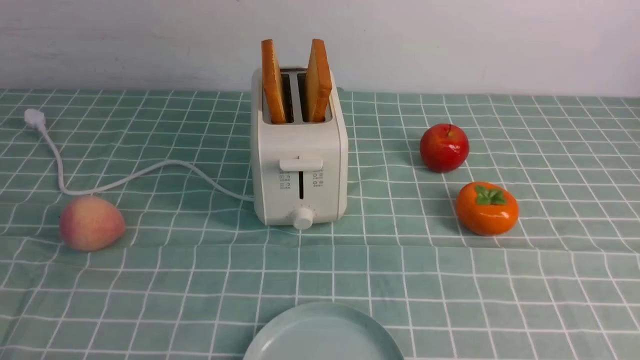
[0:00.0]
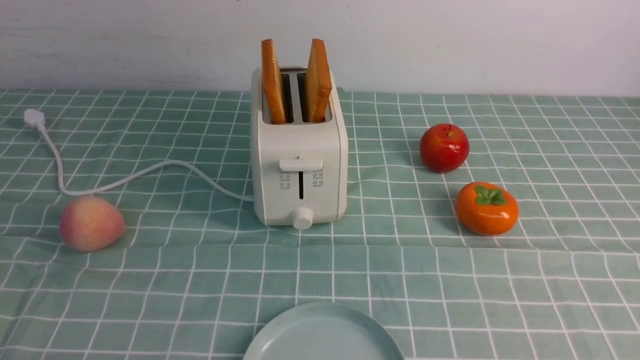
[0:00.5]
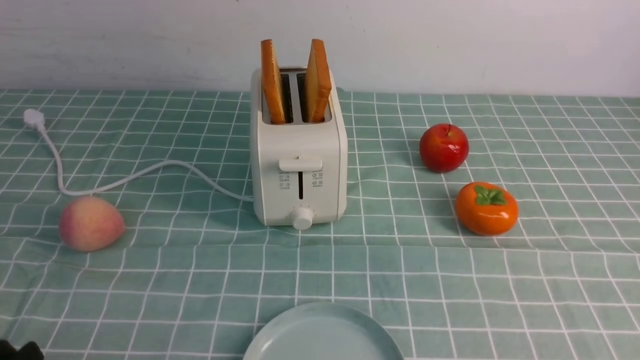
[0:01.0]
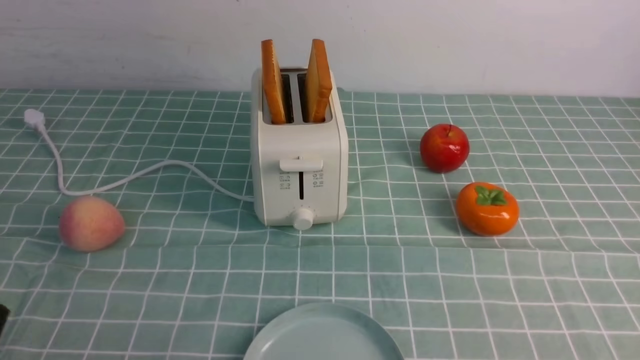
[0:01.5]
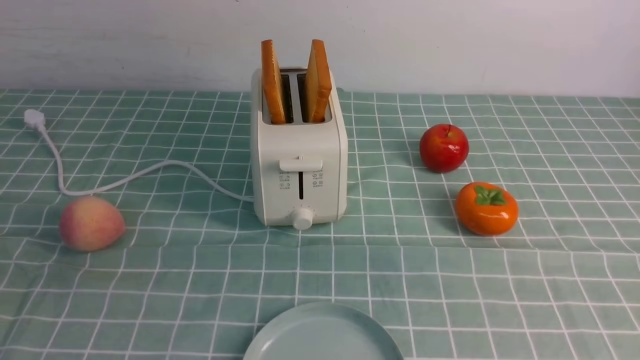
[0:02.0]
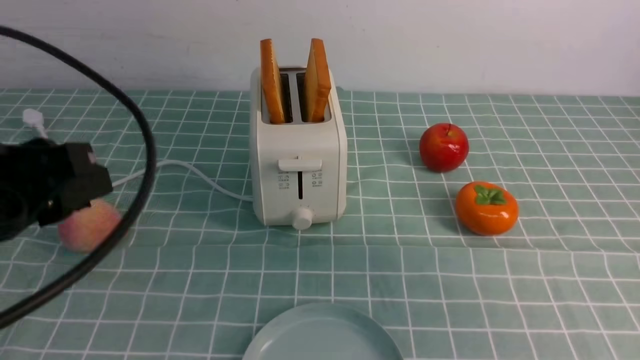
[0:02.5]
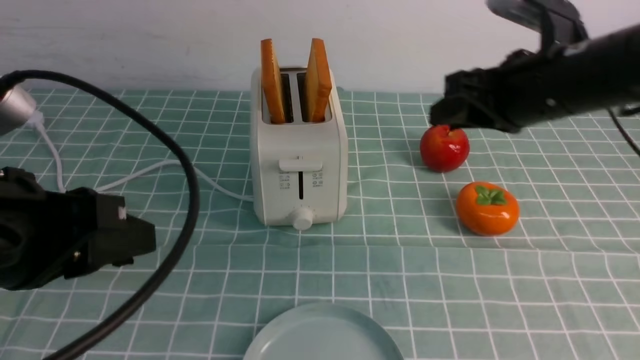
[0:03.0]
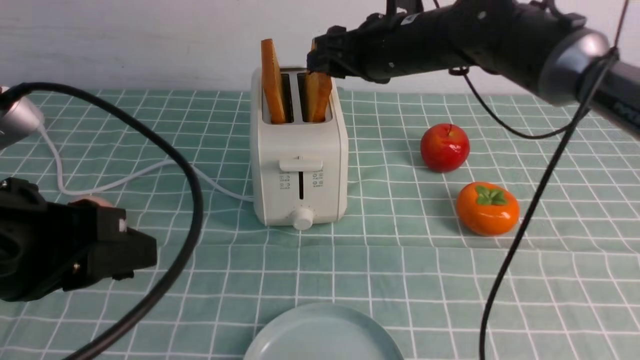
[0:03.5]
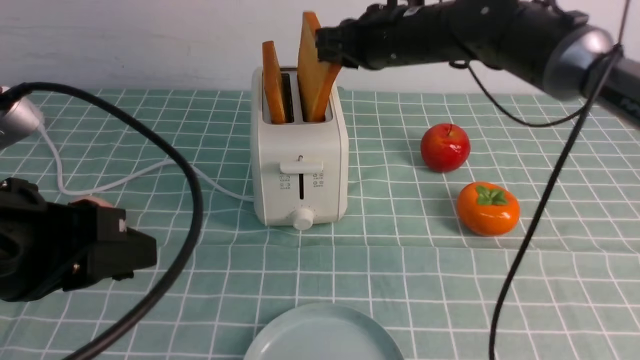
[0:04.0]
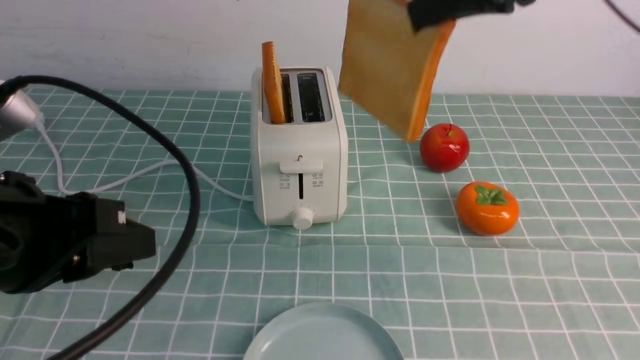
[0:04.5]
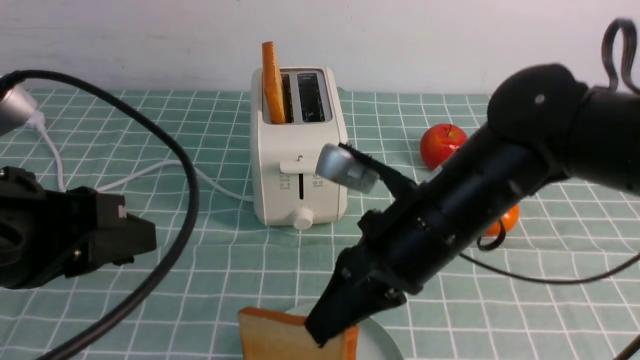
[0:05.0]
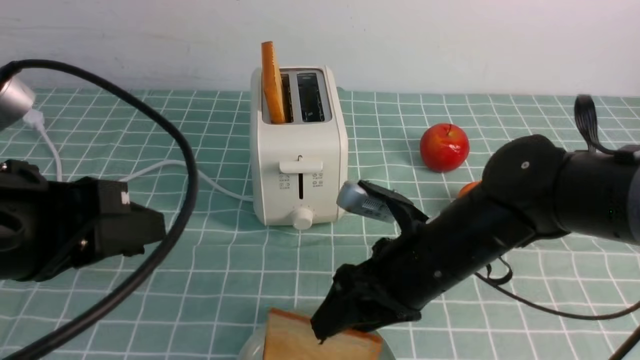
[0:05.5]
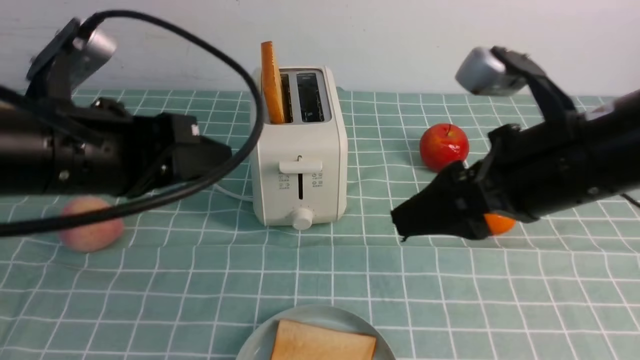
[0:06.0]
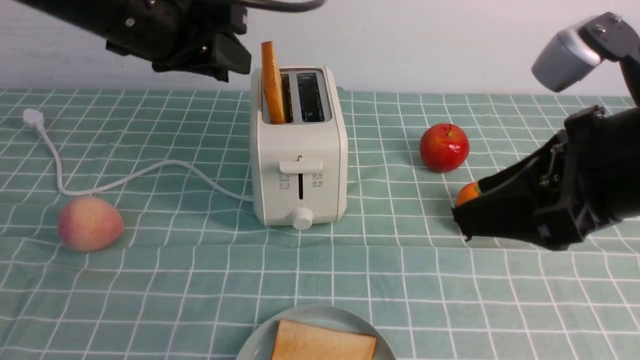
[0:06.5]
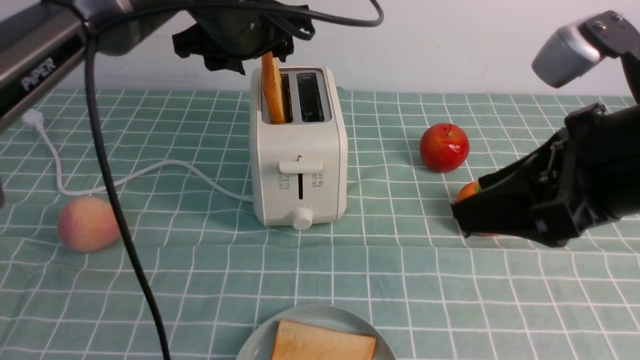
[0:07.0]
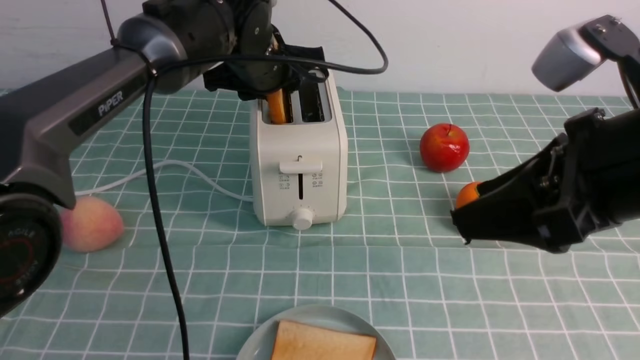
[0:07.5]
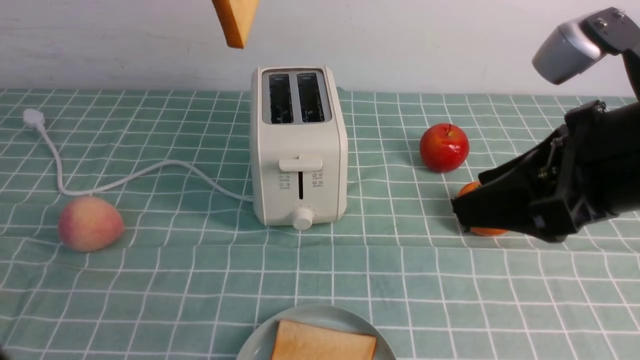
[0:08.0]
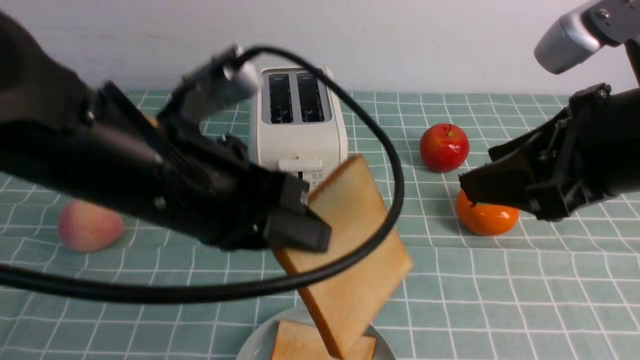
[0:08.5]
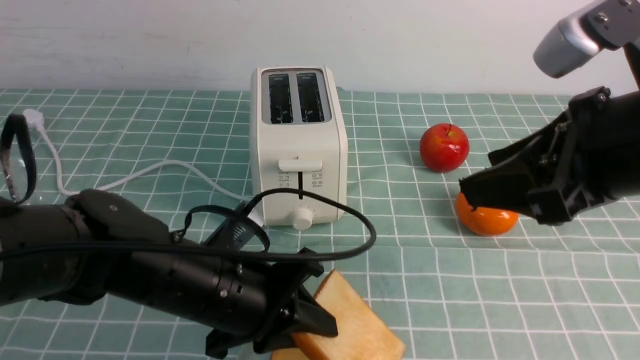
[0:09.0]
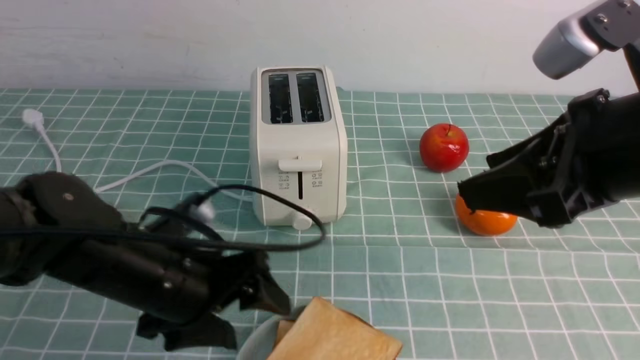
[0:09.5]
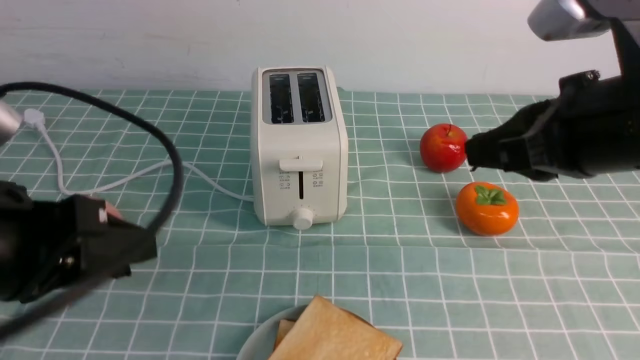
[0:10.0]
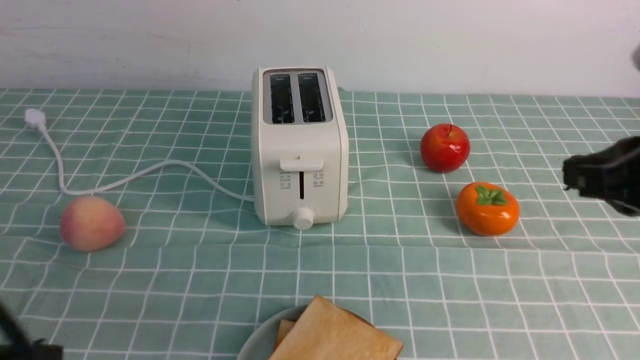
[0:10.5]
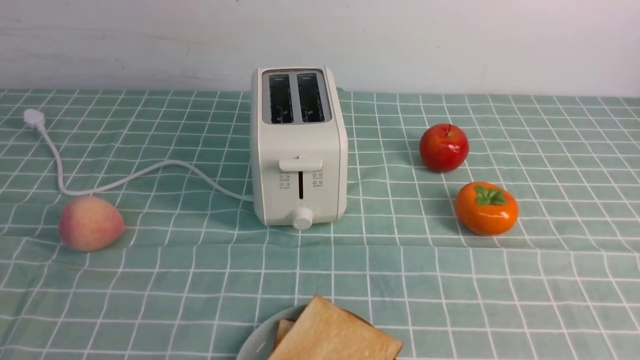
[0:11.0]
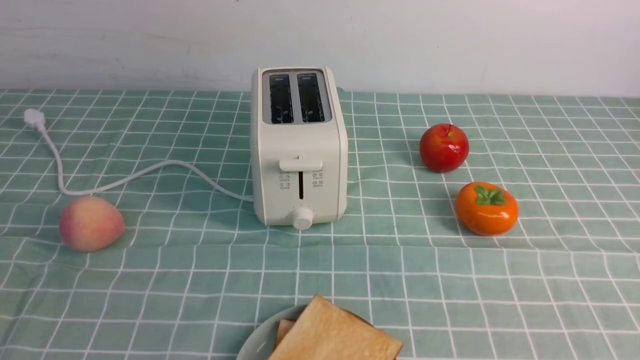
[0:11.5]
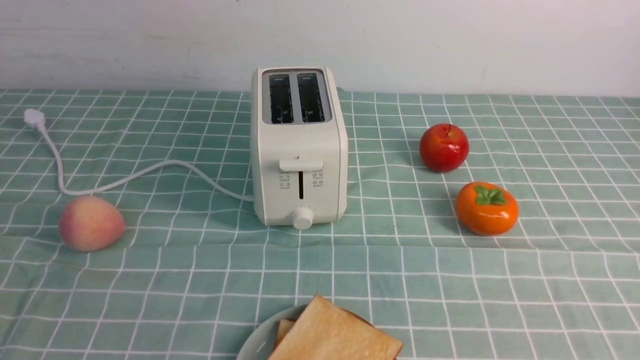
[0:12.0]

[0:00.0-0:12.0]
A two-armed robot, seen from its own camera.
Task of the whole recording: take toasted bread from bread machine on blue coffee table place on plate.
Step, 0:00.0 to 0:04.0: use the right arm to take out a slice of bread.
Step, 0:04.5 to 0:05.5: use the right arm to put a slice of bread into the plate.
Step, 0:06.0 to 0:07.5: use the left arm to take out a slice of bread.
Step, 0:08.0 to 0:09.5: use the left arm to put a slice of bread into the empty plate.
0:02.0 to 0:04.0: The right gripper moves forward and to the left, some 50 cm. The left gripper shifts about 10 cm forward and to the right.
0:04.0 to 0:06.0: The left gripper moves forward, about 5 cm. The right gripper goes up and down, roughly 20 cm each way, reversing 2 times, and opens.
0:06.0 to 0:08.0: The left gripper travels forward, upward and to the right by some 20 cm. Meanwhile the right gripper shifts some 10 cm upward and backward.
0:08.0 to 0:10.0: The left gripper shifts approximately 25 cm backward, downward and to the left, and opens its fingers, while the right gripper closes up.
0:10.0 to 0:12.0: The right gripper is displaced backward, downward and to the right by approximately 25 cm. The left gripper is displaced backward by roughly 15 cm, and closes.

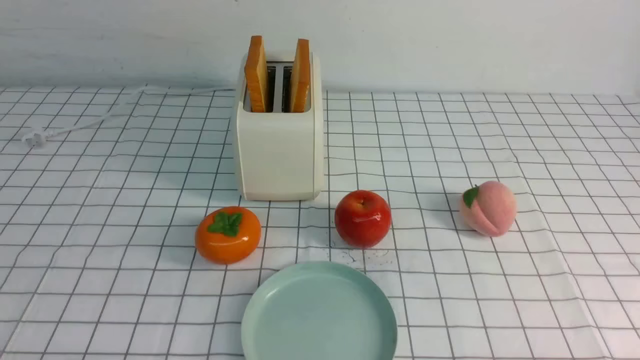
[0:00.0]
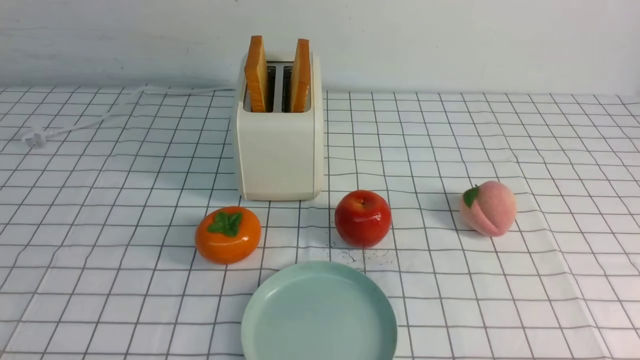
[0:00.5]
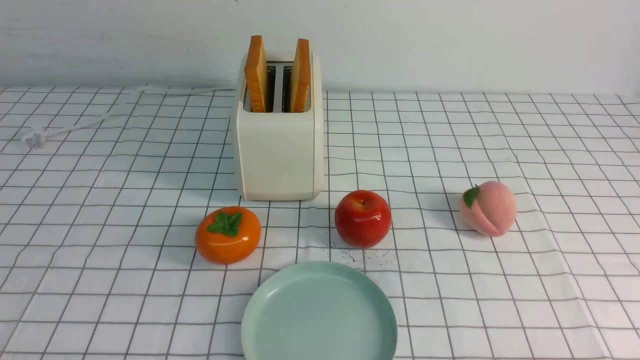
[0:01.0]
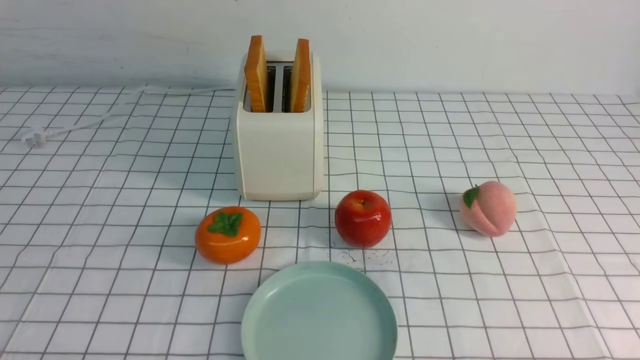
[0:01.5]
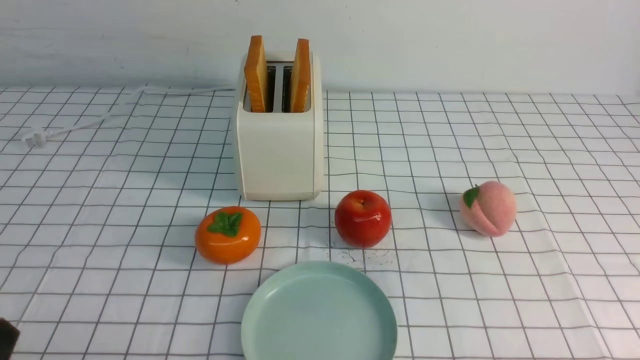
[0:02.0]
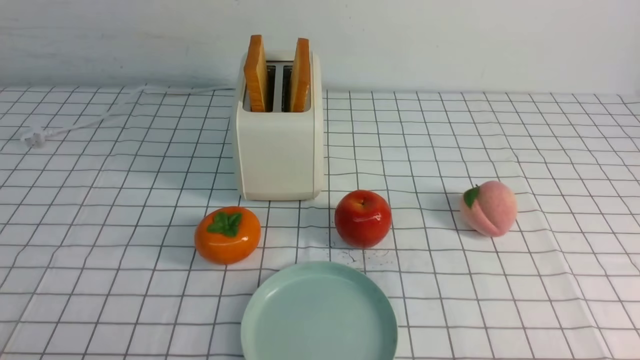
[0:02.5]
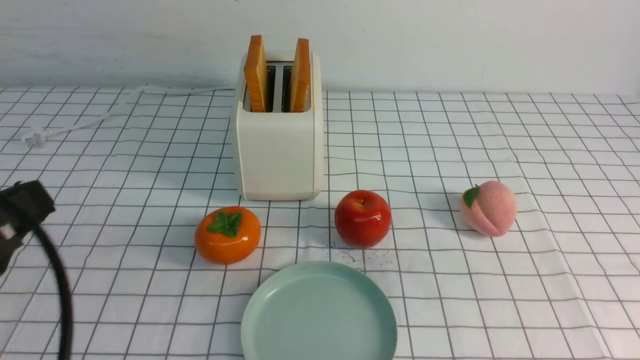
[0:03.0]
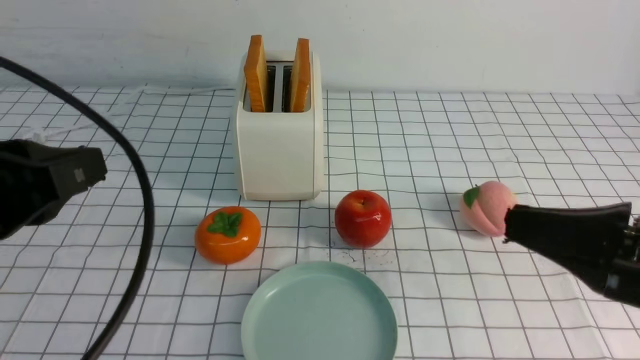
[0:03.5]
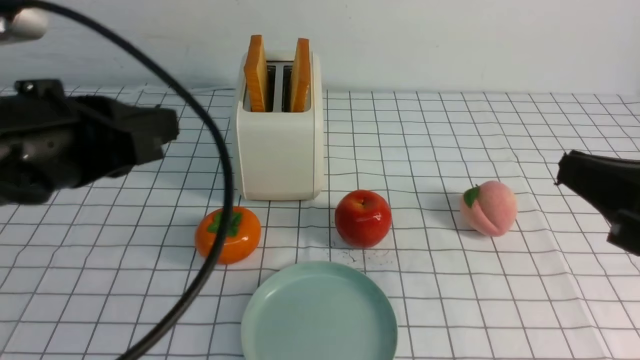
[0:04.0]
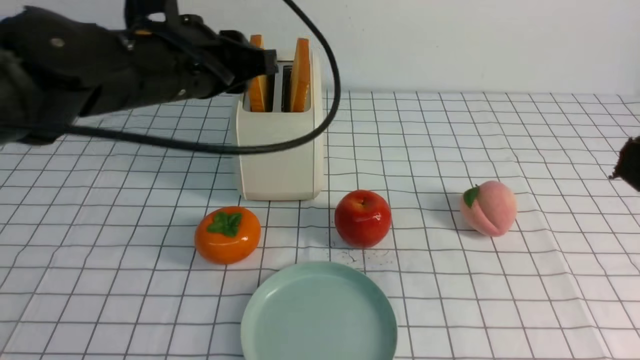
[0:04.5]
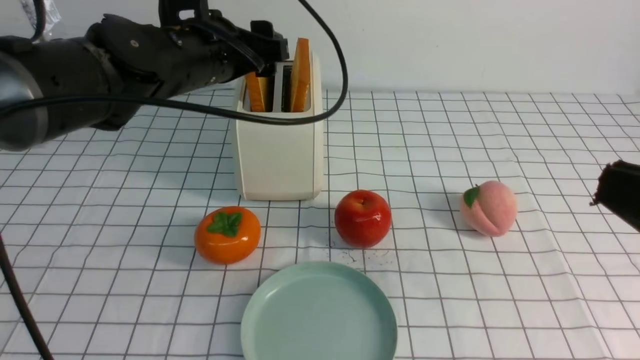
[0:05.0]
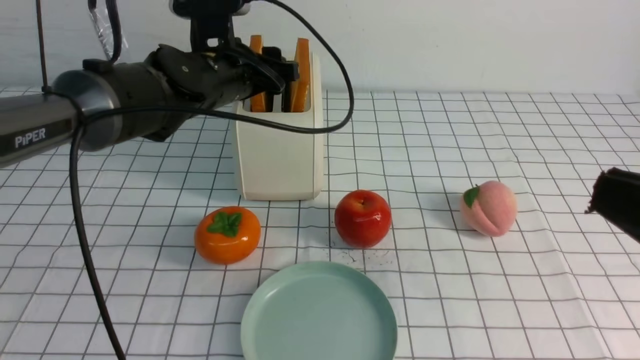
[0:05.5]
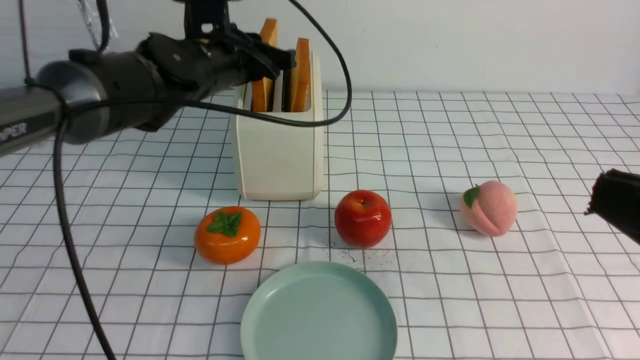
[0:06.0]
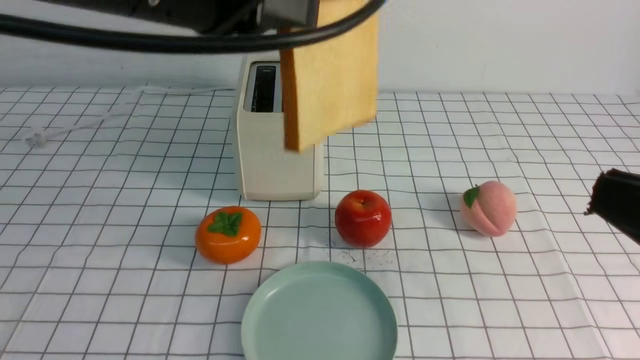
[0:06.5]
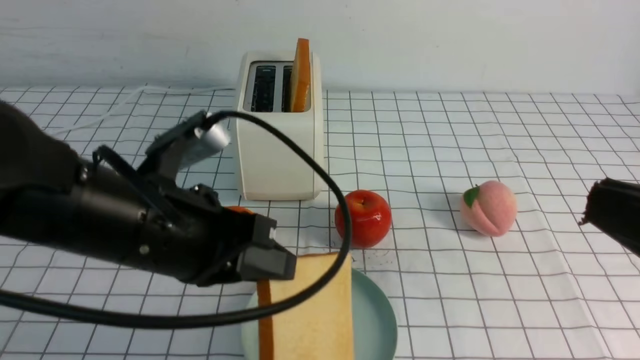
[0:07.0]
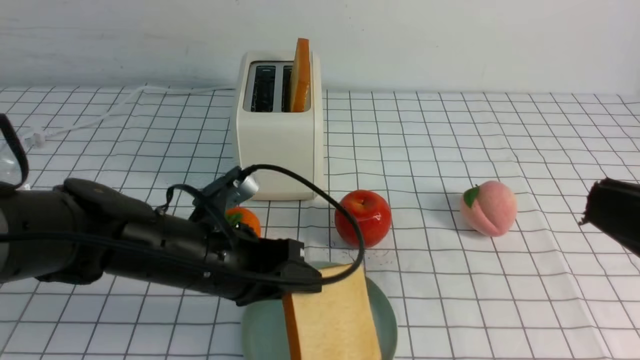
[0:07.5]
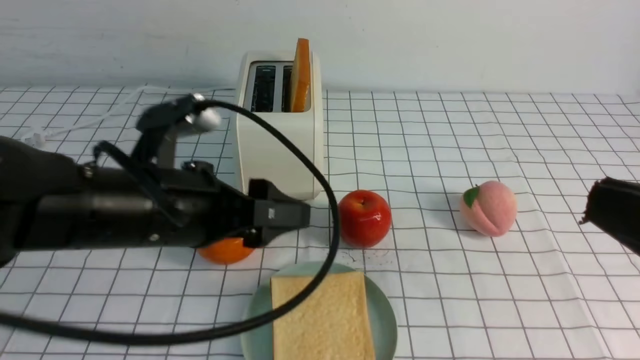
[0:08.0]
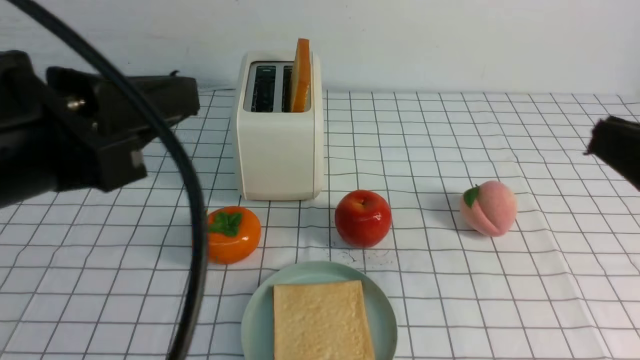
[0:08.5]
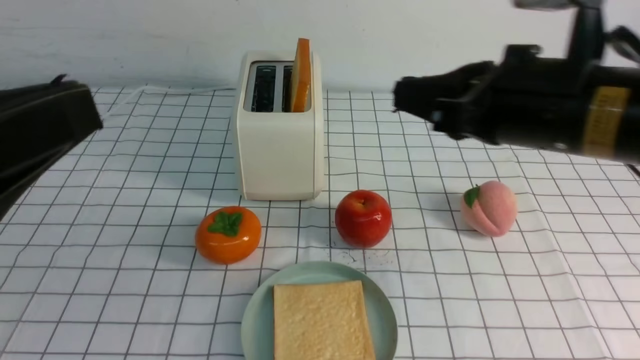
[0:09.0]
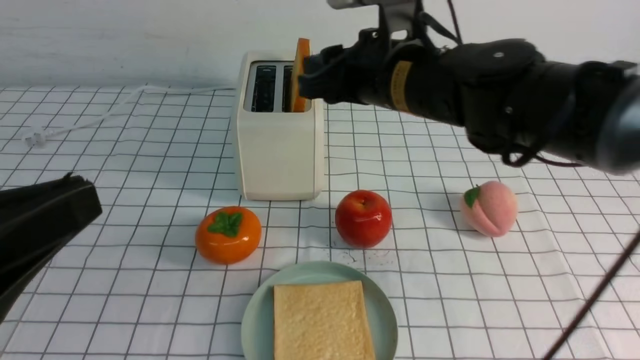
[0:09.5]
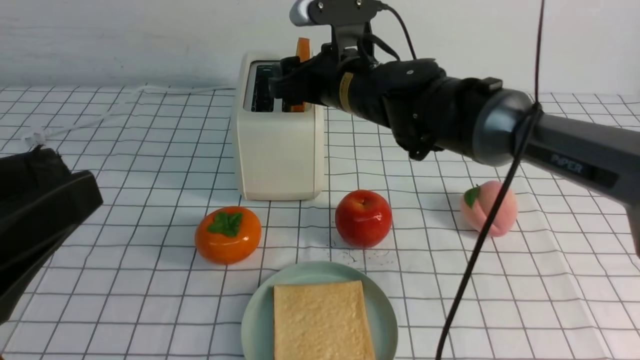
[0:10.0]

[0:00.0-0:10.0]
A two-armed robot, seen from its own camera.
Task of the whole recording: take toasted bread from bread machine on white checkered table place on plate.
Step, 0:00.0 to 0:06.0: use the left arm to take out a slice of bread.
Step, 0:06.5 to 0:08.0: use the left arm to put a slice of bread into the empty plate.
0:02.0 to 0:04.0: The right gripper moves upward, forward and to the left, about 20 cm, and closes its fingers. Meanwhile the left gripper moves upward, forward and to the right, some 25 cm, and closes its fingers.
0:04.0 to 0:06.0: The right gripper shifts approximately 5 cm backward, while the left gripper travels forward by some 20 cm, and opens, then closes again.
0:06.0 to 0:08.0: The left gripper goes up and down, roughly 20 cm each way, reversing 2 times, and opens its fingers.
0:08.0 to 0:10.0: The left gripper moves backward, to the left and upward, about 20 cm, and closes up; the right gripper travels forward and to the left by roughly 40 cm, and opens up.
